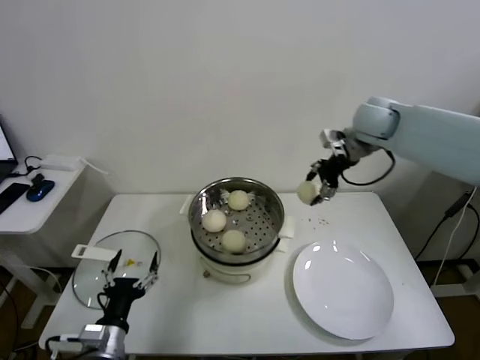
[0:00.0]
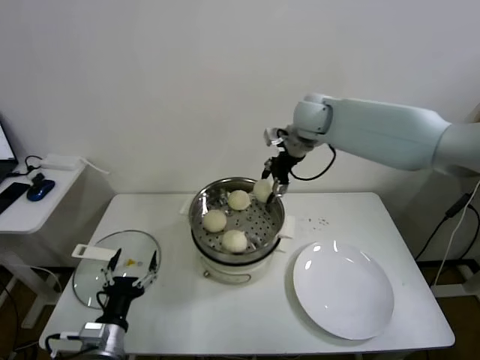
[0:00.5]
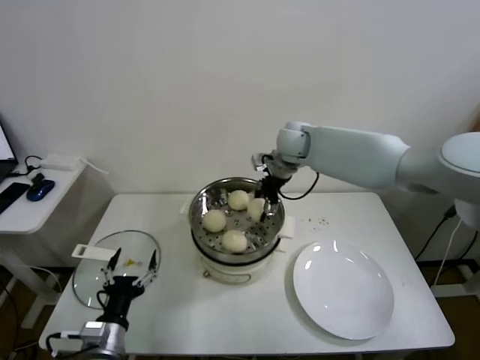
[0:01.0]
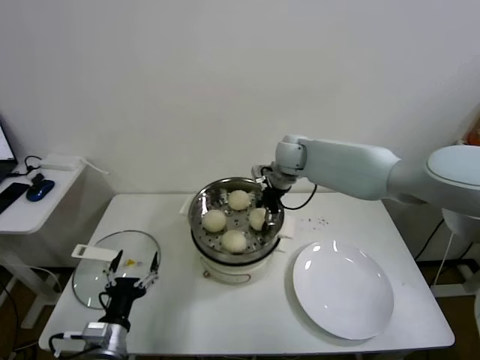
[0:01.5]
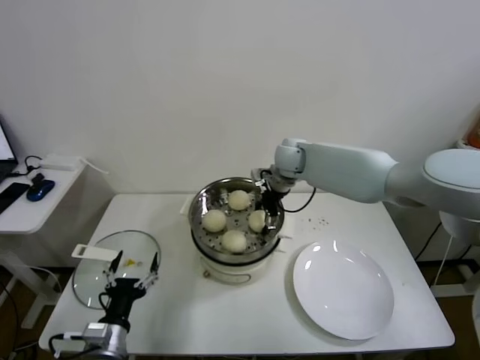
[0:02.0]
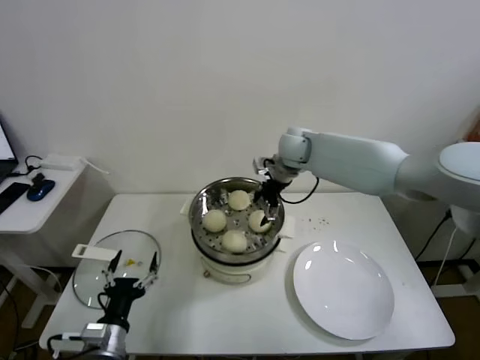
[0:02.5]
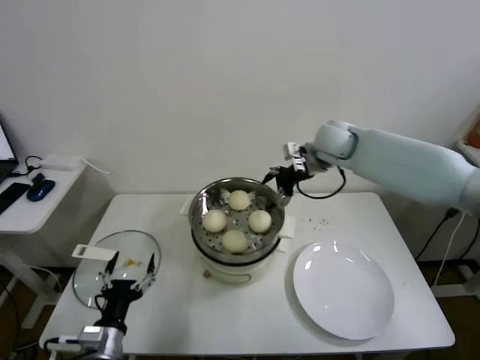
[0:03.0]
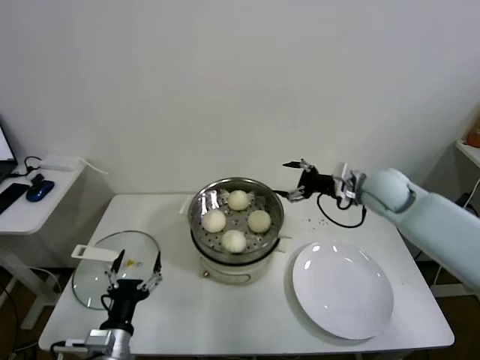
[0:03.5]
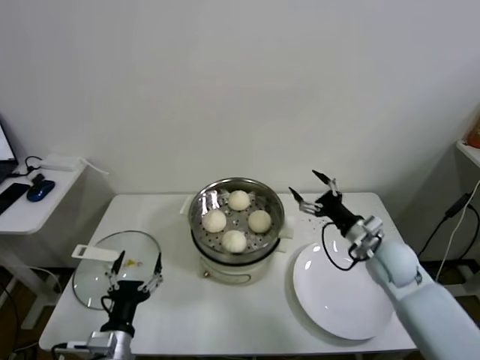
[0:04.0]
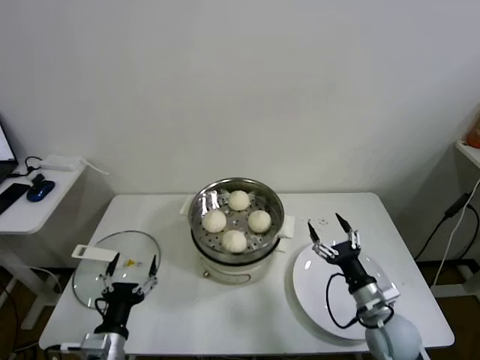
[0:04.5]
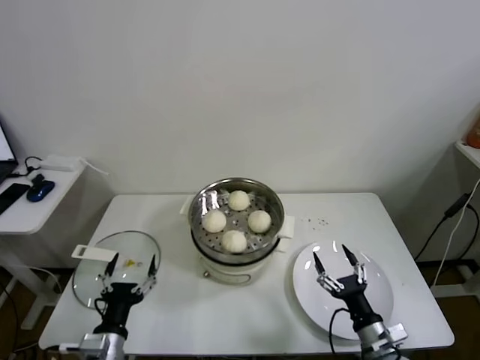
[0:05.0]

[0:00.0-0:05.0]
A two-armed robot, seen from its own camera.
Task of the whole recording: take steamed baozi put them in steamer.
Step, 0:00.0 to 0:02.0: Place the baozi on the steamer with right gripper.
0:00.0 to 0:02.5: The right gripper is displaced to the left and downward by about 20 cm, and opens its fingers.
0:02.5 to 0:05.0: The right gripper goes about 50 cm backward, downward and to the right.
